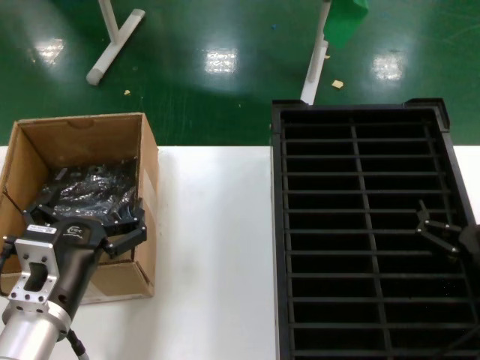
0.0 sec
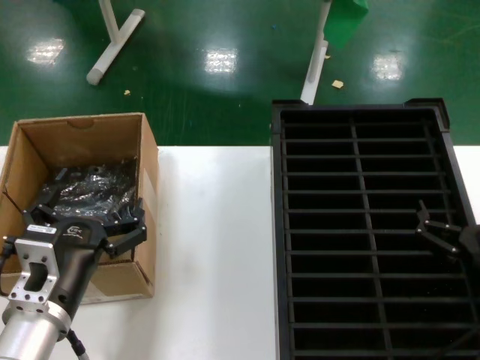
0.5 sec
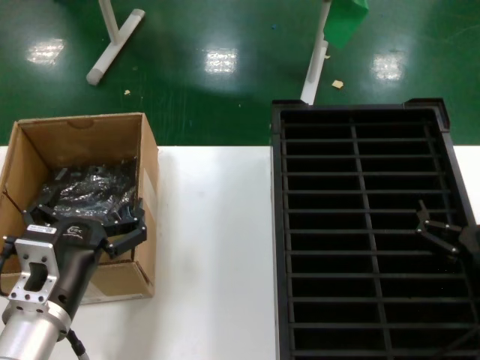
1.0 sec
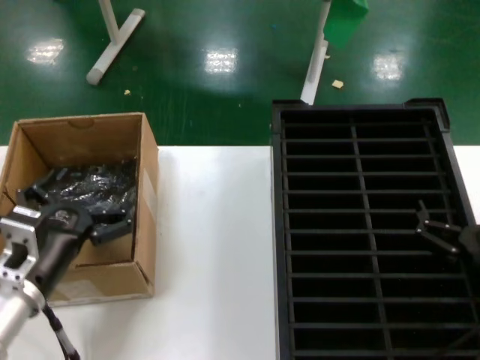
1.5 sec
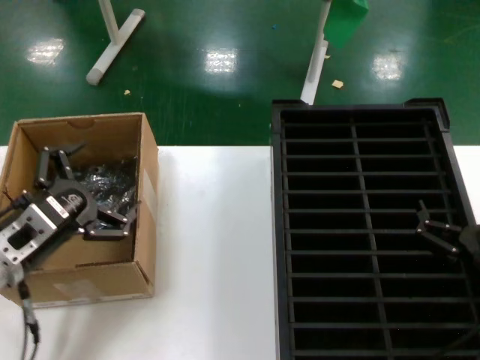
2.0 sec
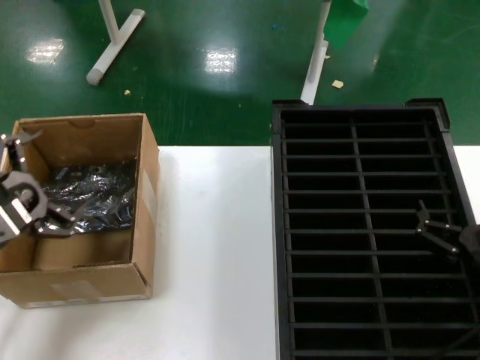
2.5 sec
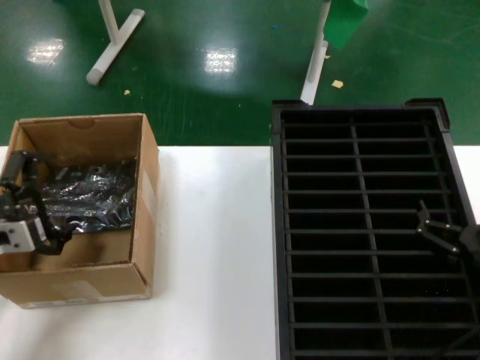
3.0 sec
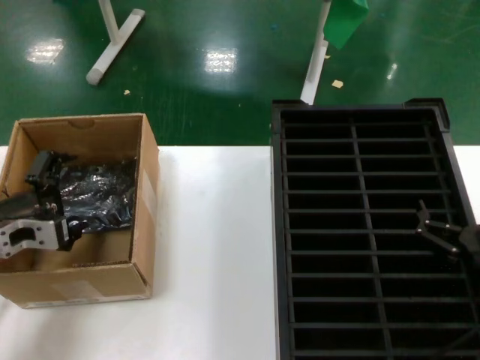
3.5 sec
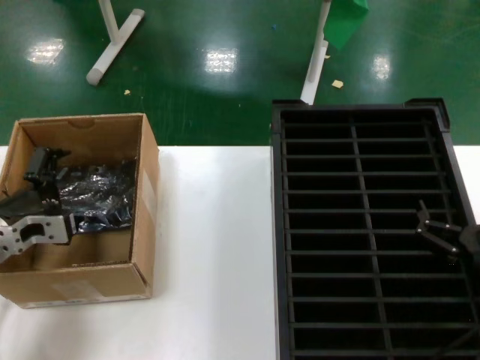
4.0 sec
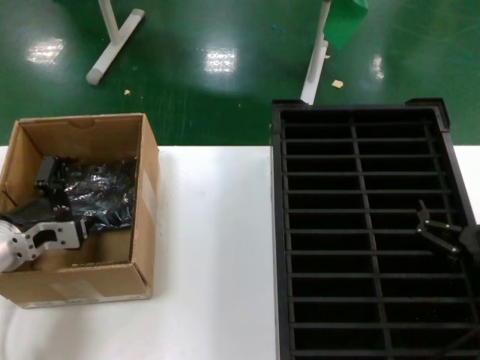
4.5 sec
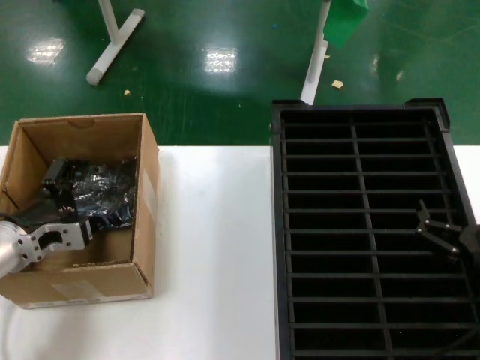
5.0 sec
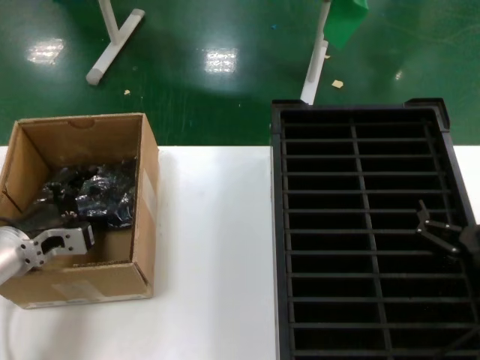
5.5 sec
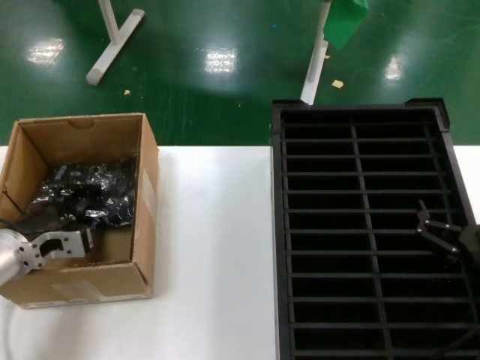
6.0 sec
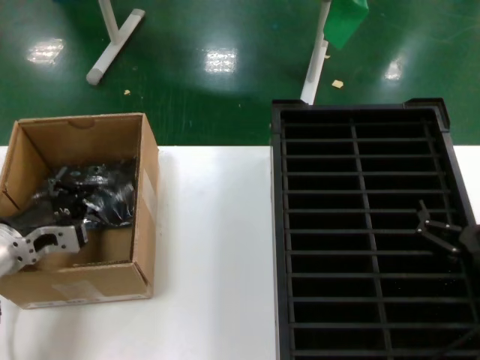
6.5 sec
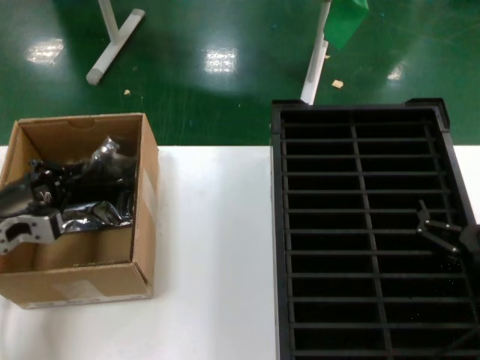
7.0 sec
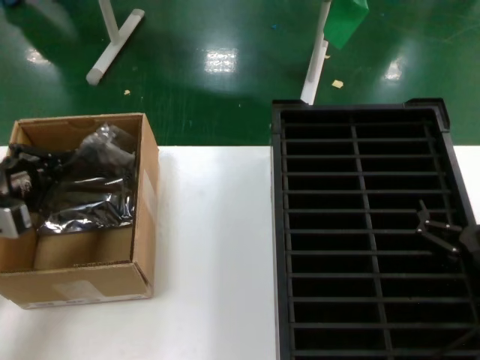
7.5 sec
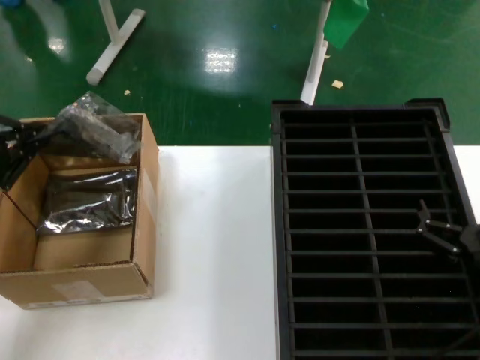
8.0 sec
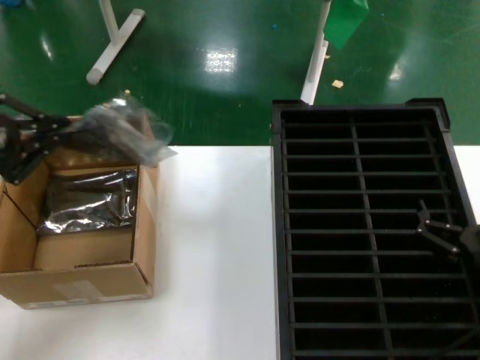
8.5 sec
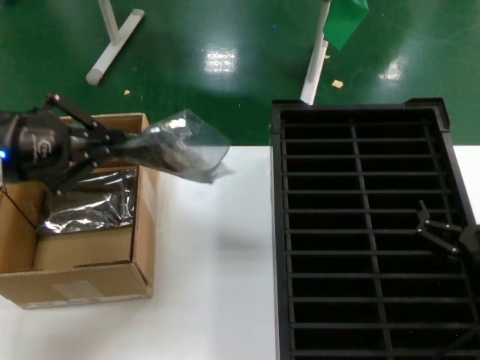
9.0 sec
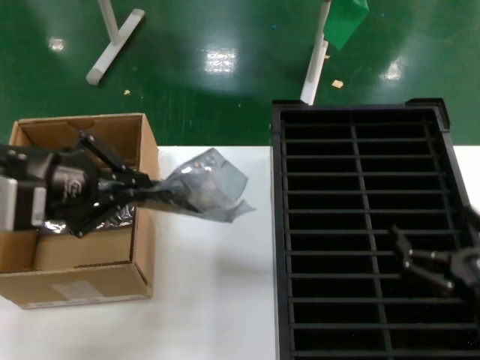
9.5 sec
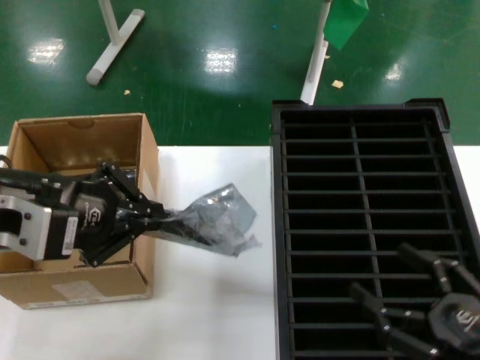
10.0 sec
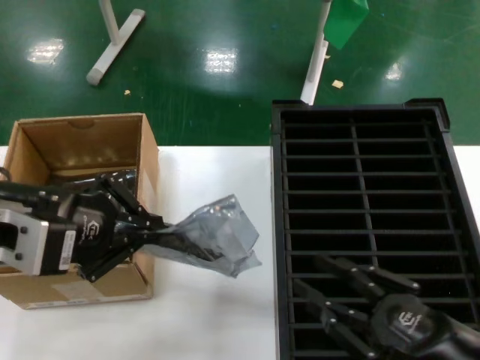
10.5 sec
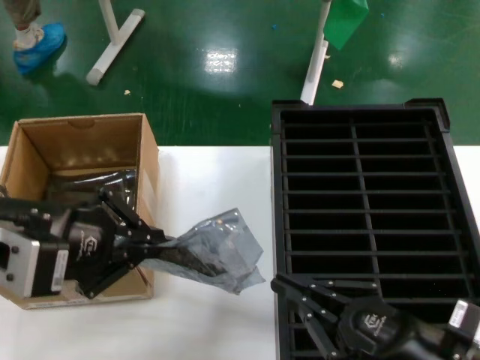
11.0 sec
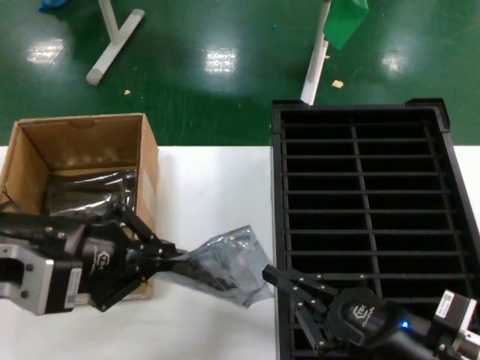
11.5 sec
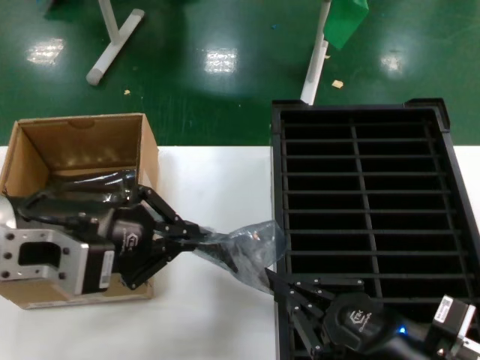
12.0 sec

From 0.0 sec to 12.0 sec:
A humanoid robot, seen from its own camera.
Task of the whole recording: take out graphics card from box remove packaging put into black container.
Step, from 0.0 sec to 6.0 sec: Grasp the bag.
Step, from 6.5 sec to 10.0 sec: Lift the bag.
From 0.0 sec to 2.0 sec: The left hand heads to the left and forward, covering about 10 cm.
From 2.0 sec to 4.0 sec: The left hand is displaced forward by approximately 5 cm.
From 4.0 sec to 6.0 sec: There are only small adjustments of the hands.
From 6.0 sec to 8.0 sec: The left hand heads upward, to the left and backward, covering approximately 20 cm.
From 8.0 sec to 10.0 sec: The left hand travels to the right, upward and backward by roughly 20 cm; the right hand goes approximately 10 cm backward.
From 10.0 sec to 12.0 sec: The right hand goes approximately 10 cm to the left.

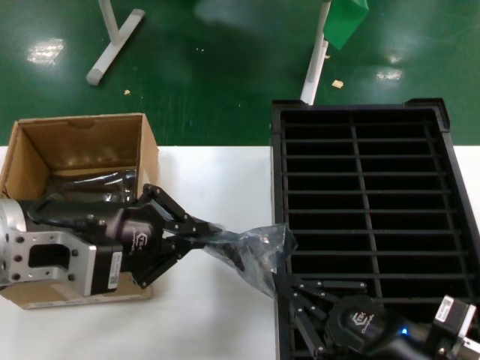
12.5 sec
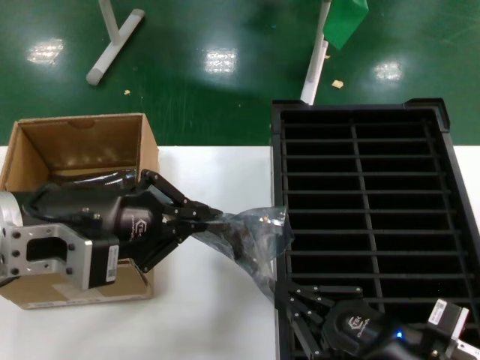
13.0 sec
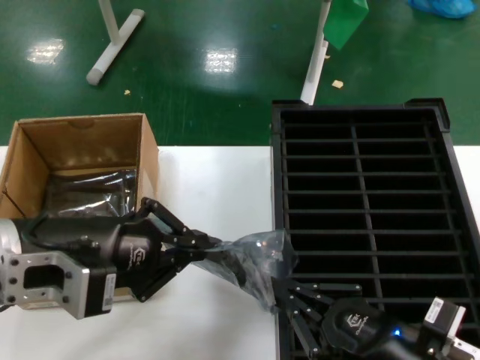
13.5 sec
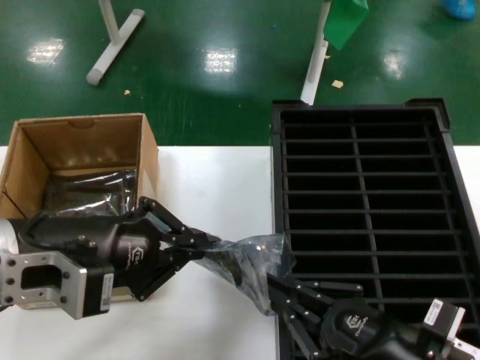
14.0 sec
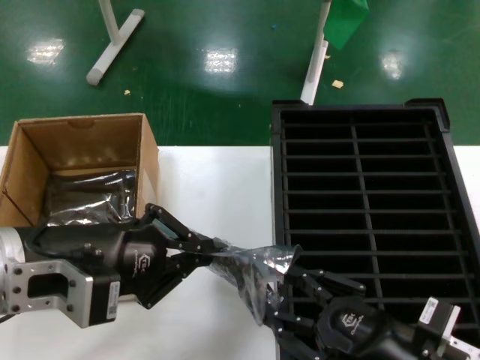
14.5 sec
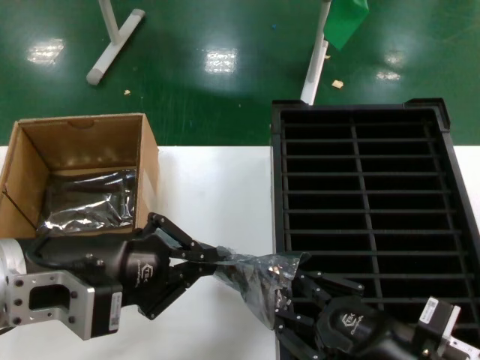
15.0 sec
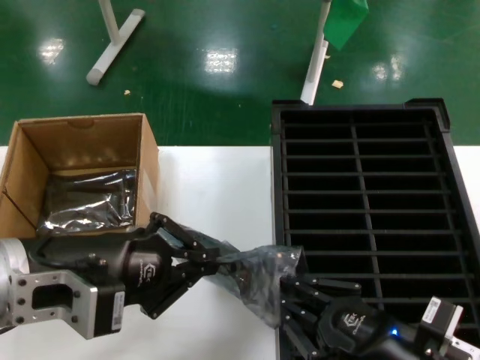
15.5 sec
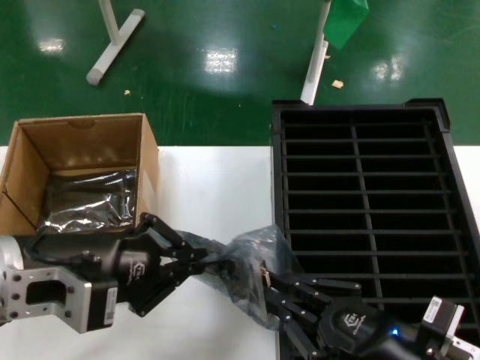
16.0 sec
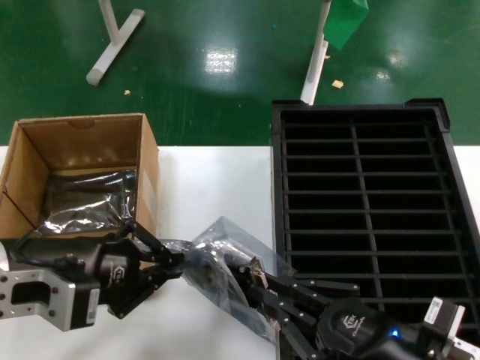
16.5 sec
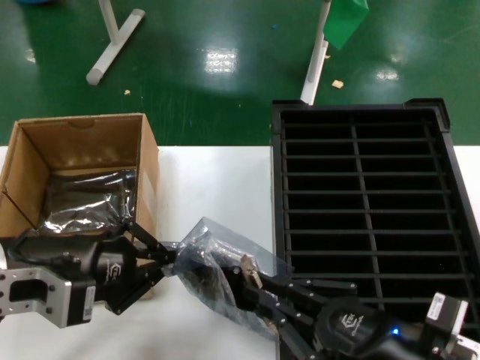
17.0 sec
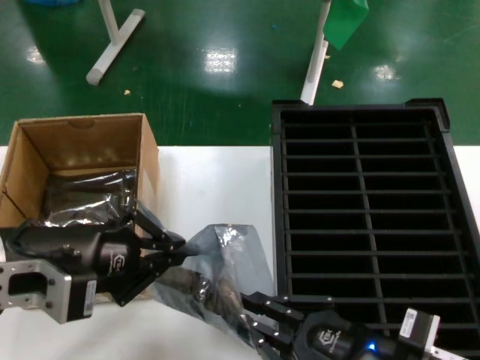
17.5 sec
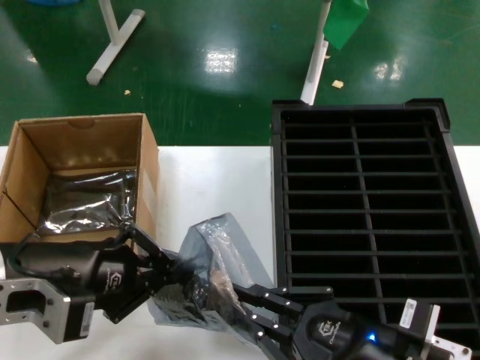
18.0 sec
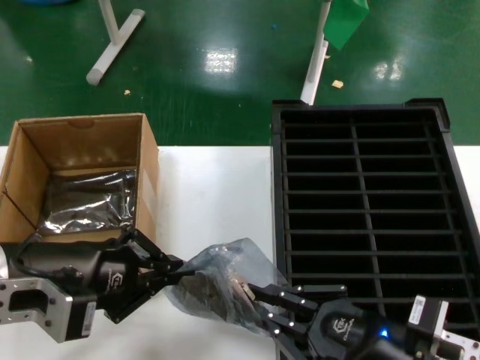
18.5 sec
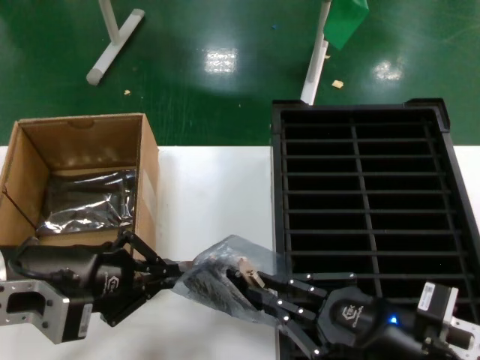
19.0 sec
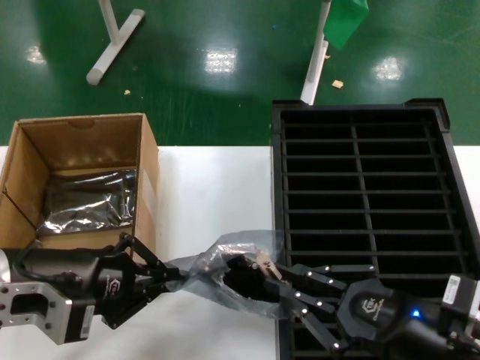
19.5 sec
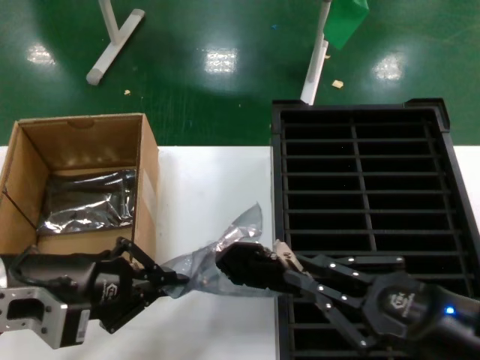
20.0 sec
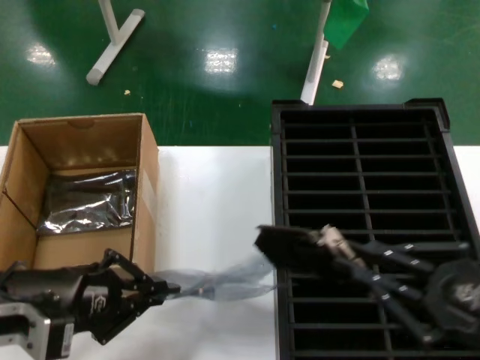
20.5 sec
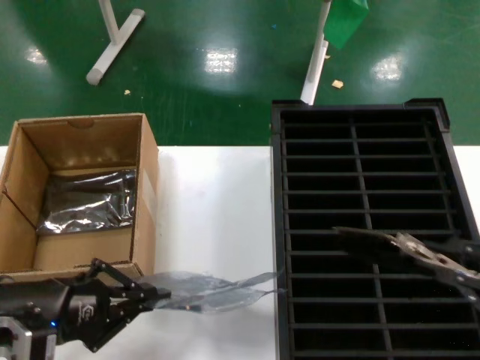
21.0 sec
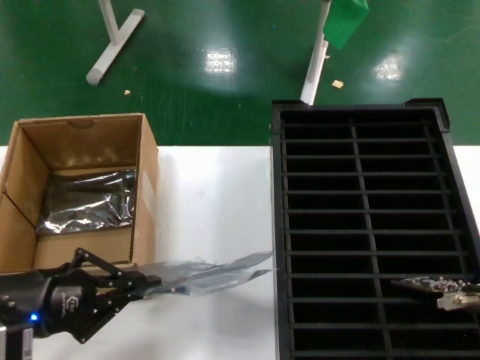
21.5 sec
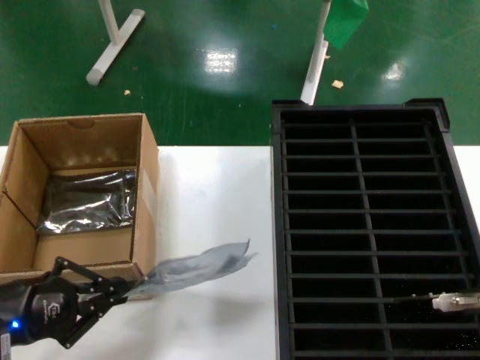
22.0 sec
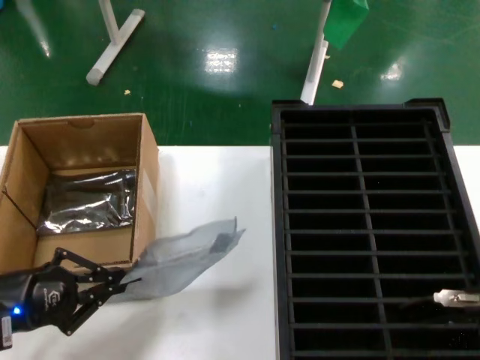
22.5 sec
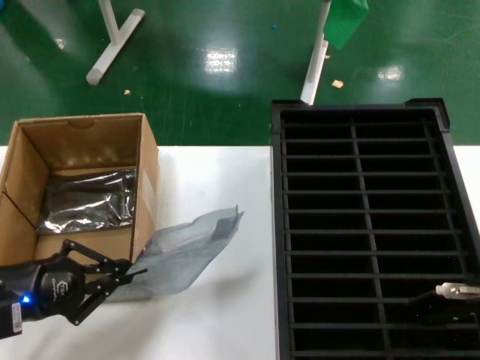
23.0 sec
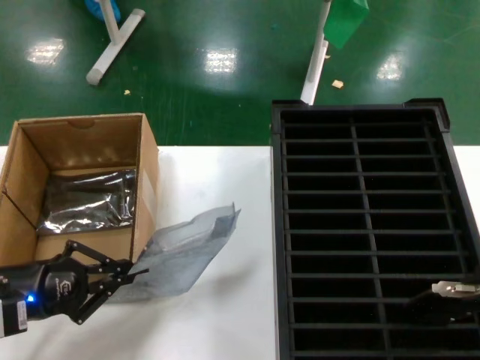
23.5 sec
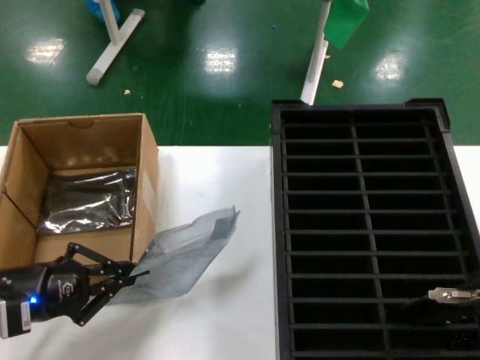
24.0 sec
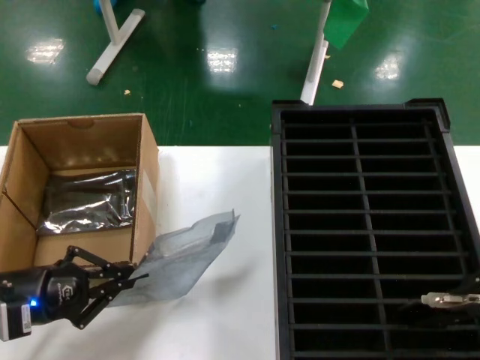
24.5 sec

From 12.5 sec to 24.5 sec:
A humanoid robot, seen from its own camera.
Task of the whole recording: take out graphics card from box remove packaging put into black container.
Step, from 12.5 sec to 20.0 sec: Take out the hard disk of the bag.
From 12.5 sec to 18.5 sec: There are only small adjustments of the hands.
From 18.5 sec to 20.5 sec: The right hand shifts some 15 cm upward and to the right. Meanwhile the left hand moves roughly 5 cm.
From 20.5 sec to 22.5 sec: The left hand shifts some 10 cm to the left and downward. Meanwhile the right hand travels upward and to the right by approximately 15 cm.
From 22.5 sec to 24.5 sec: The right hand shifts about 5 cm forward.

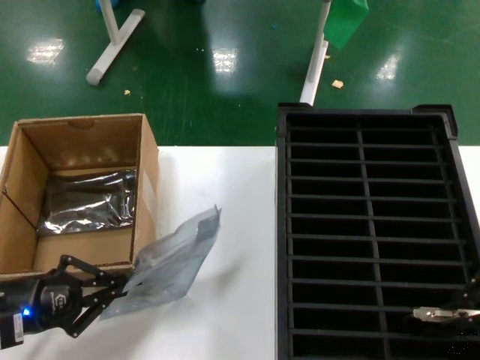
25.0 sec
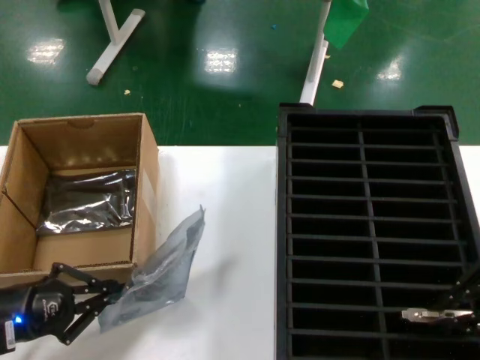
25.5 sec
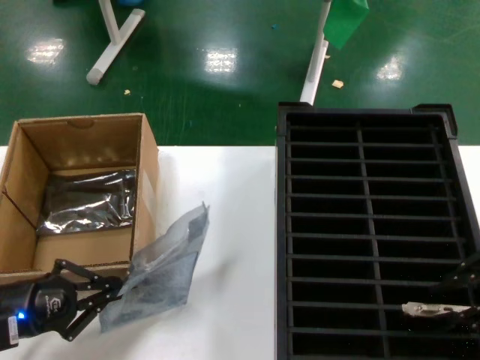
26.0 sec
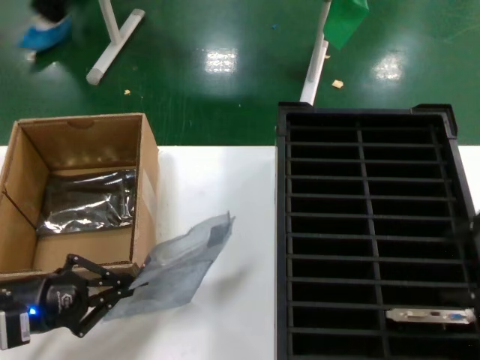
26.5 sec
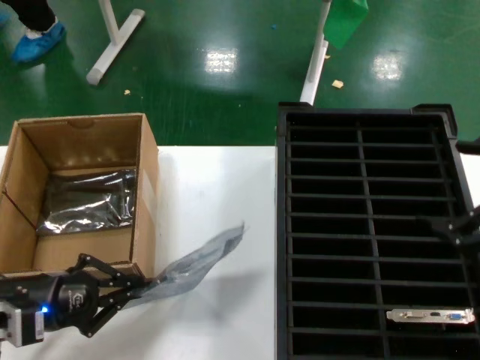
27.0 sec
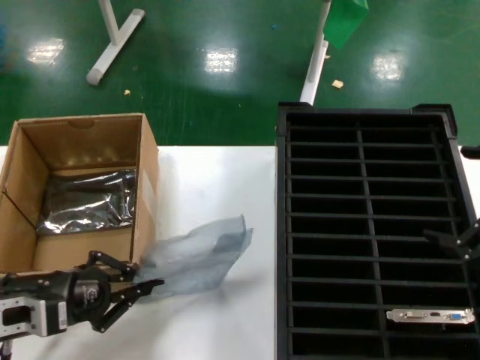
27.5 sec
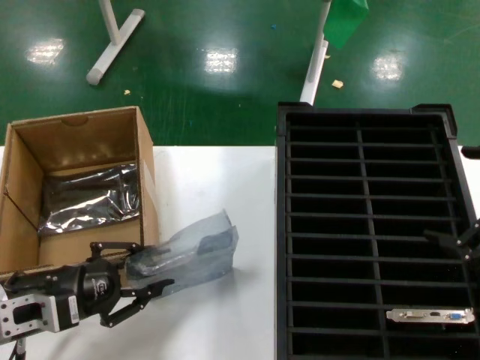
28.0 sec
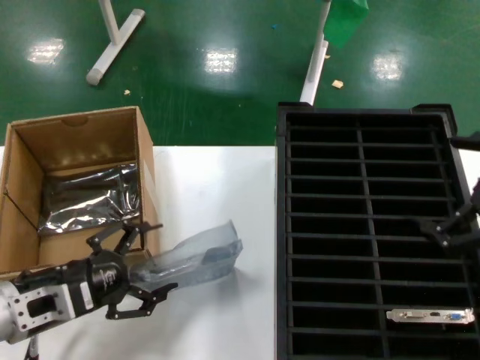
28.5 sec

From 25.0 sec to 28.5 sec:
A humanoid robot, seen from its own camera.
Task of the whole recording: take out graphics card from box remove packaging put into black container.
From 27.0 sec to 28.5 sec: The left hand shifts by approximately 5 cm.
